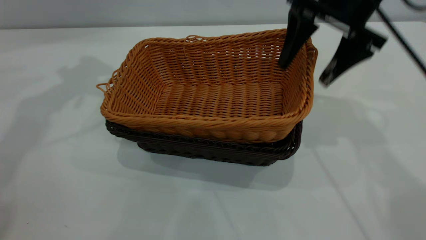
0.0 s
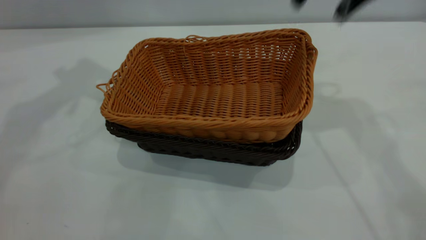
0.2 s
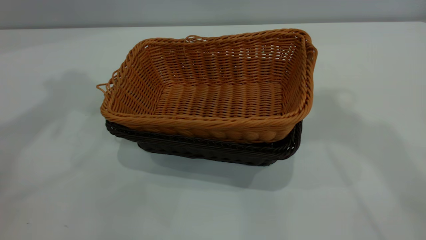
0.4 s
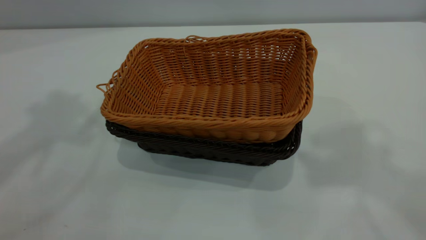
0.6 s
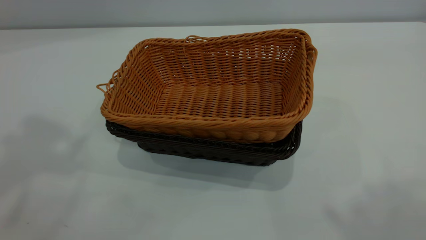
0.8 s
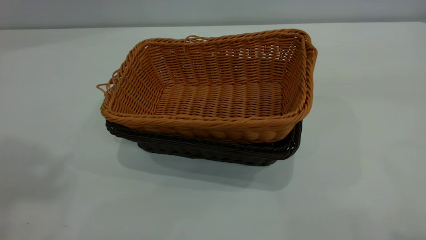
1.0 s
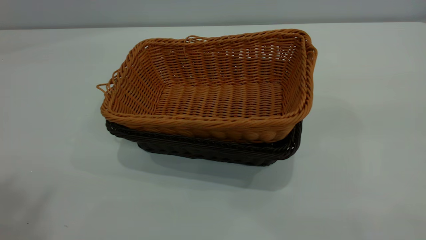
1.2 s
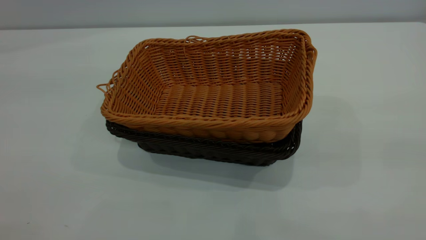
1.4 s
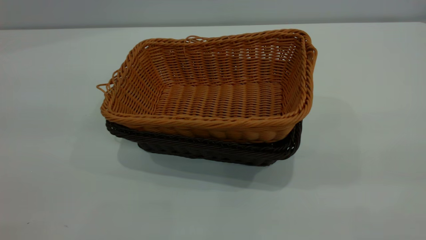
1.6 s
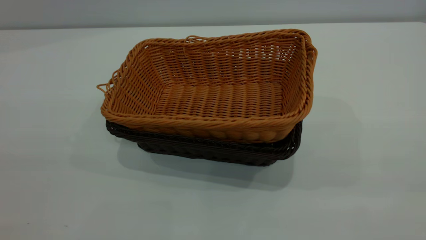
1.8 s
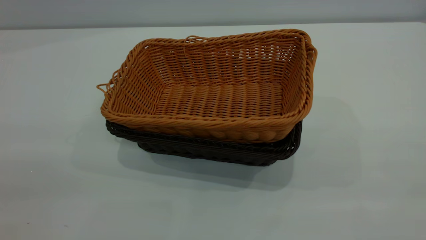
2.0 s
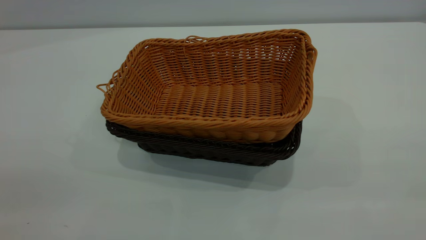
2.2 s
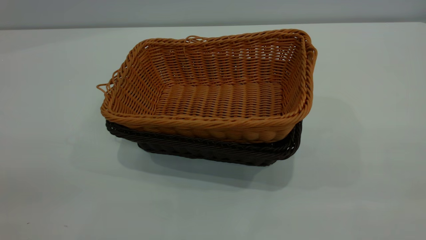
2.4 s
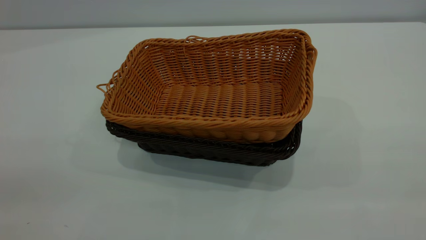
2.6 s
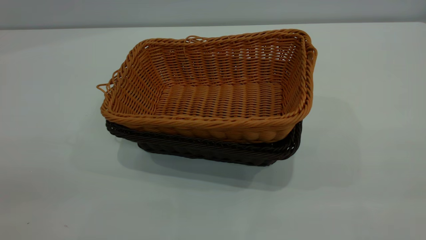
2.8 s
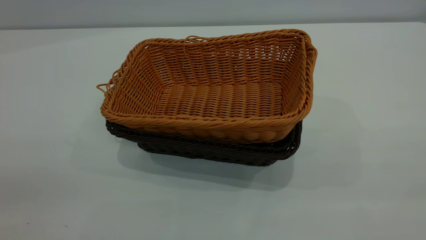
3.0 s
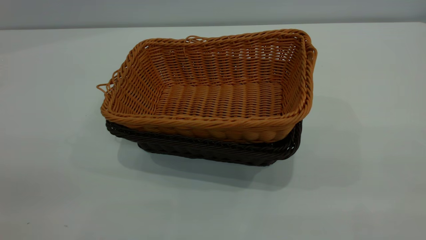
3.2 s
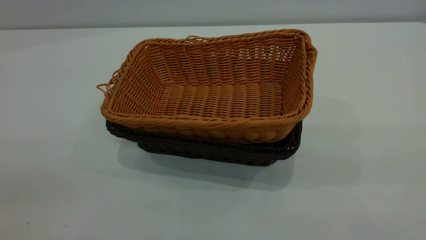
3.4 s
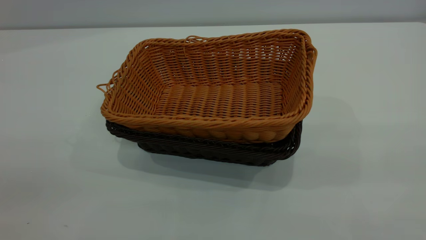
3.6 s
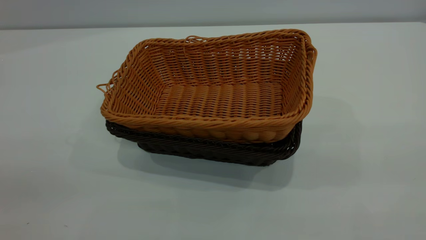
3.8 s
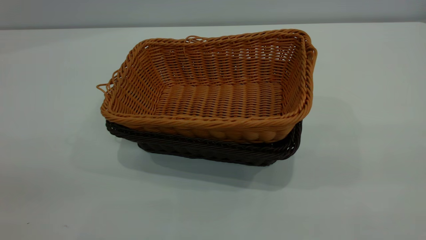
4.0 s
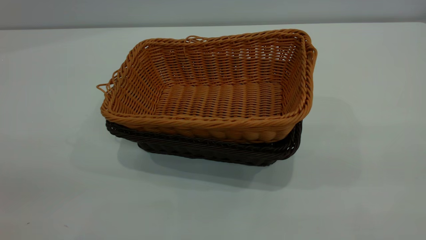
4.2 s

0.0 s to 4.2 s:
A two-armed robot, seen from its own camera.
Task of the whole recording: the left gripper grasp the black basket and place it in the center of the table, the right gripper grasp the brown basket and place it inside the black one.
0.0 to 1.4 s: The right gripper moves backward and upward, roughly 40 cm.

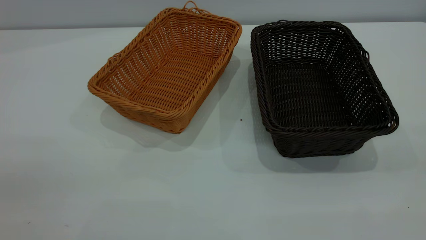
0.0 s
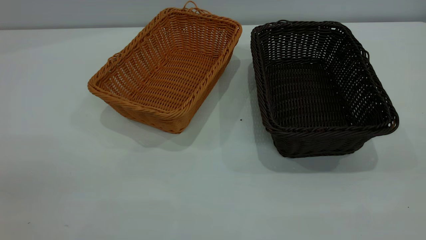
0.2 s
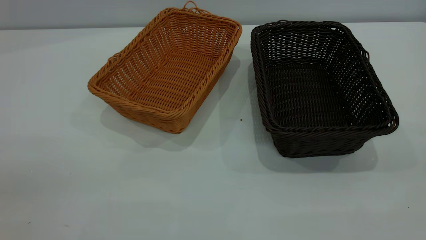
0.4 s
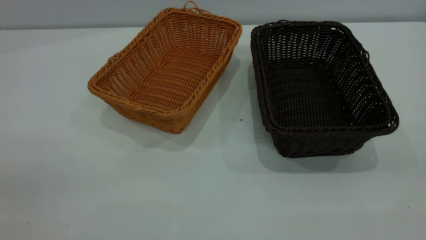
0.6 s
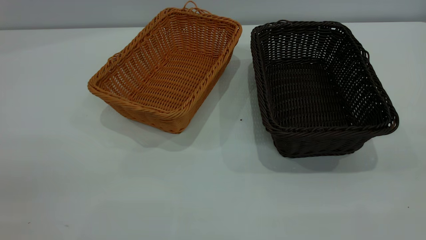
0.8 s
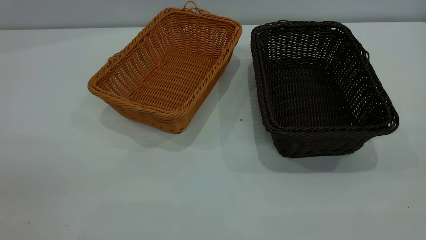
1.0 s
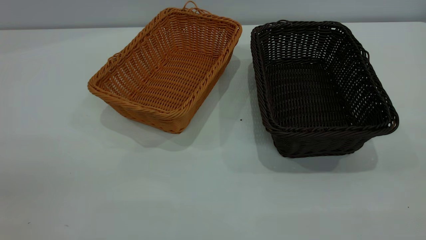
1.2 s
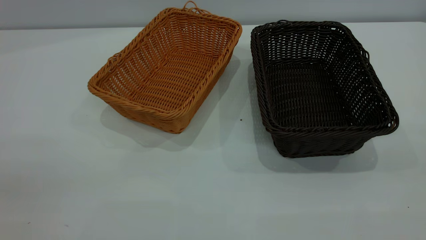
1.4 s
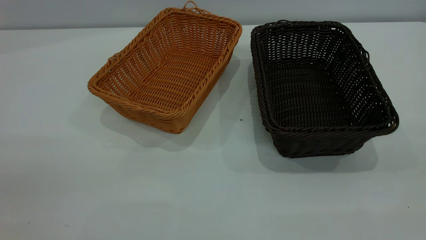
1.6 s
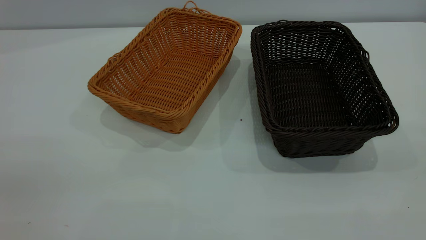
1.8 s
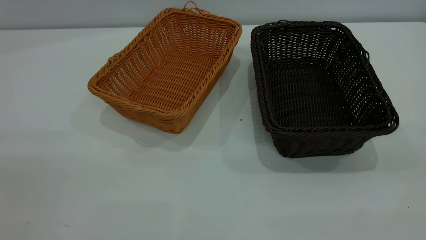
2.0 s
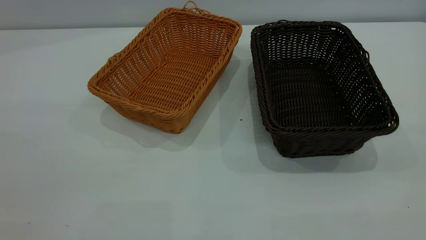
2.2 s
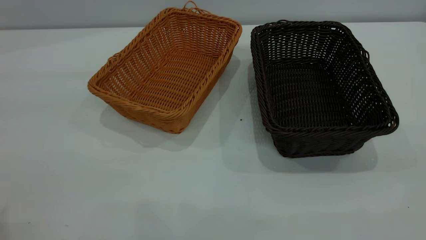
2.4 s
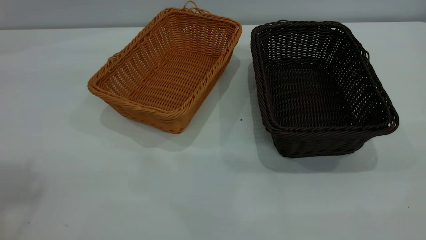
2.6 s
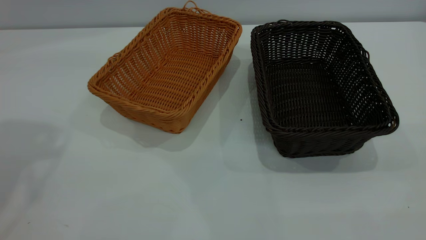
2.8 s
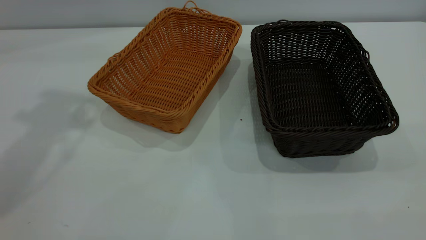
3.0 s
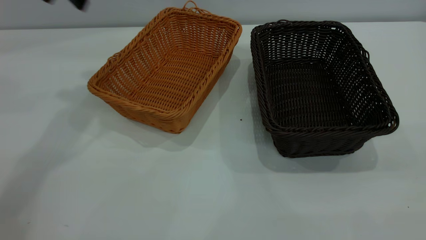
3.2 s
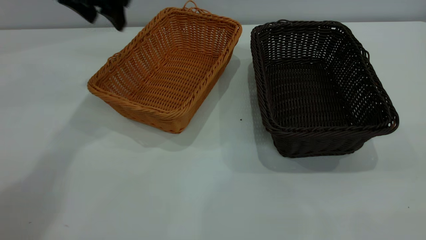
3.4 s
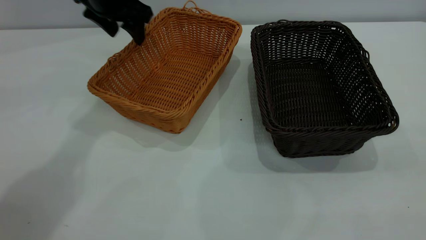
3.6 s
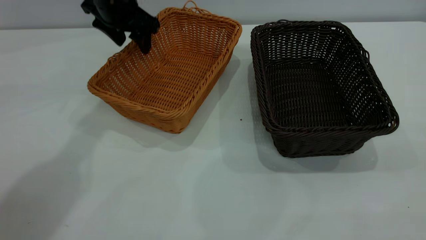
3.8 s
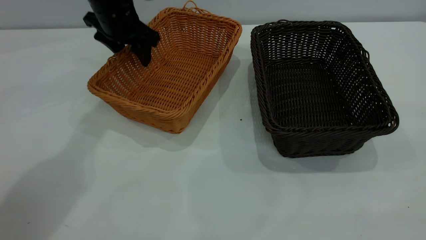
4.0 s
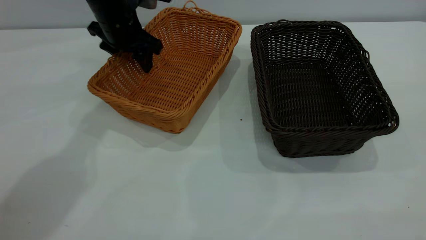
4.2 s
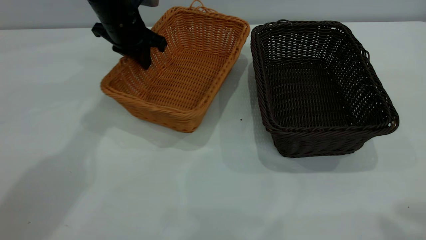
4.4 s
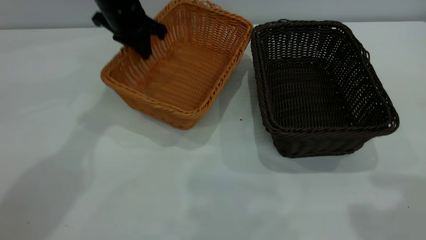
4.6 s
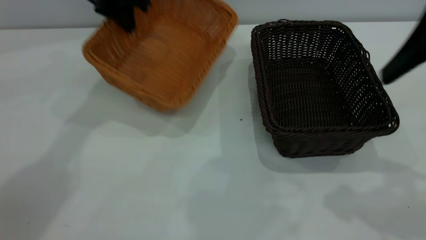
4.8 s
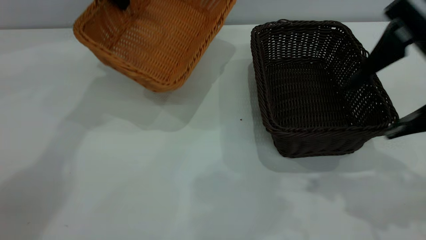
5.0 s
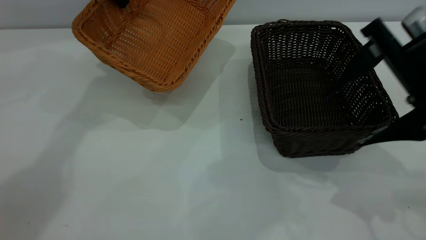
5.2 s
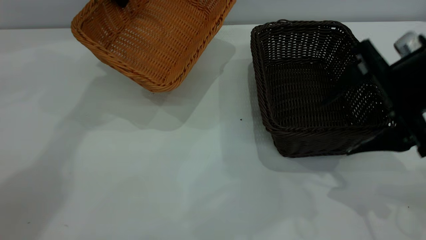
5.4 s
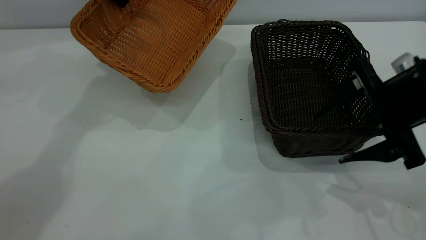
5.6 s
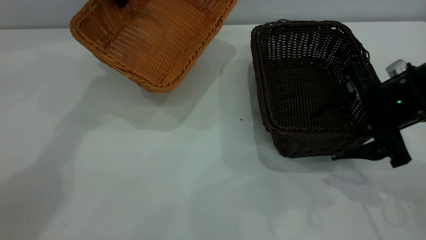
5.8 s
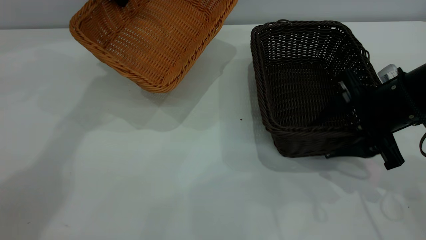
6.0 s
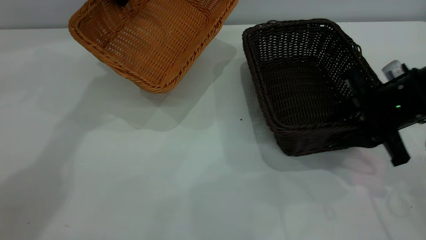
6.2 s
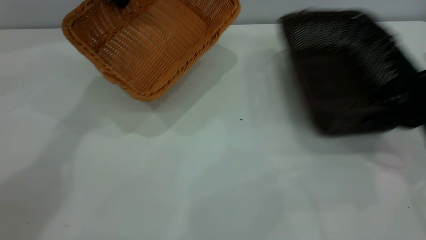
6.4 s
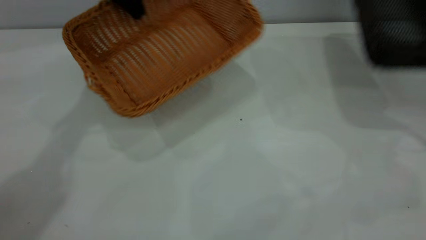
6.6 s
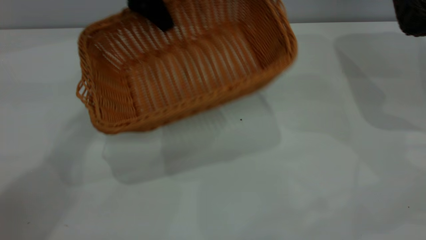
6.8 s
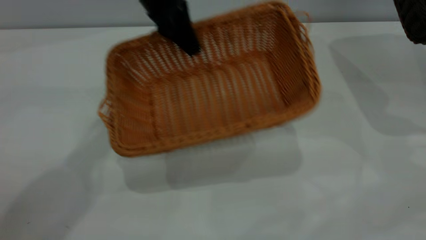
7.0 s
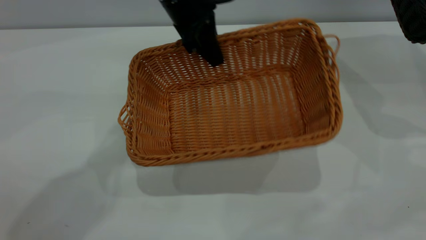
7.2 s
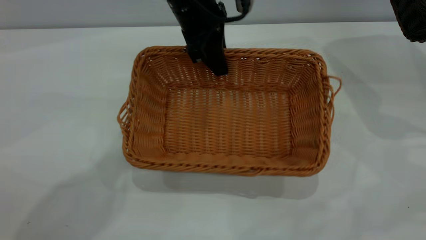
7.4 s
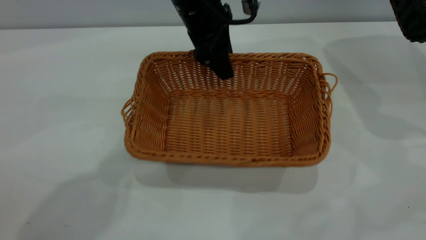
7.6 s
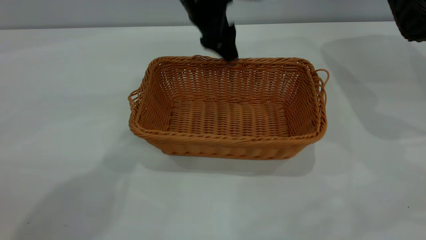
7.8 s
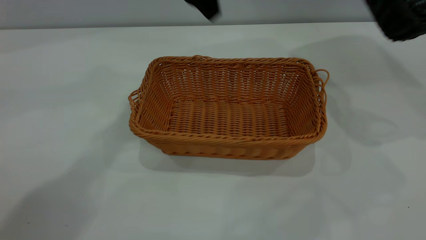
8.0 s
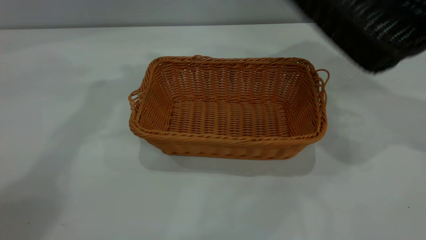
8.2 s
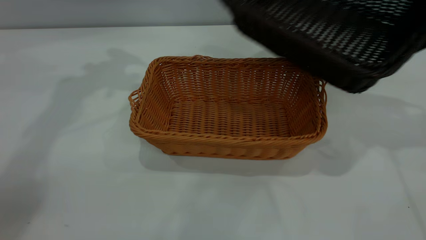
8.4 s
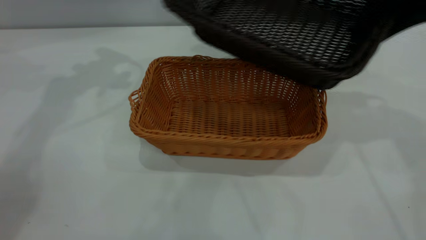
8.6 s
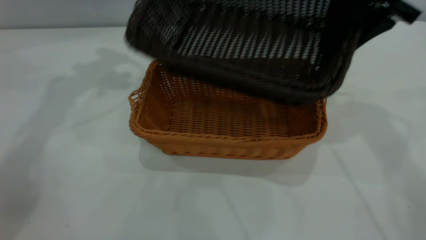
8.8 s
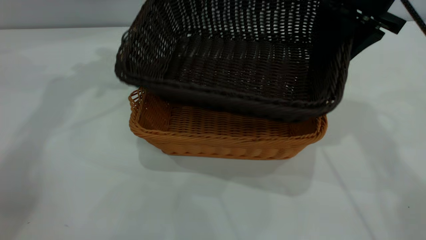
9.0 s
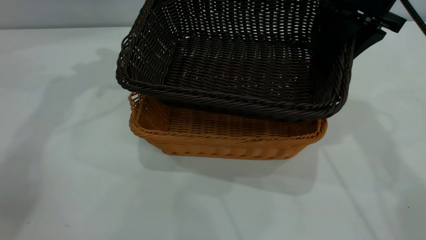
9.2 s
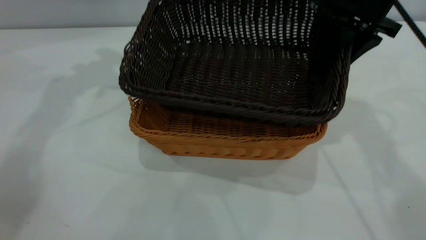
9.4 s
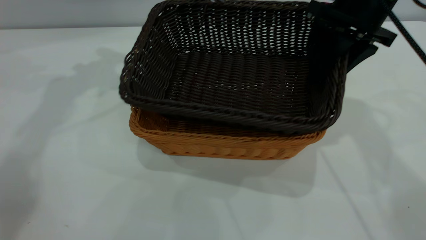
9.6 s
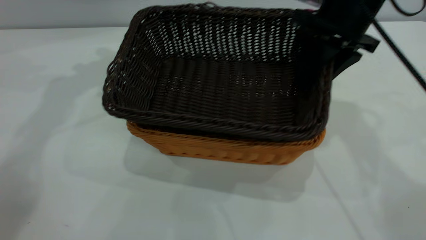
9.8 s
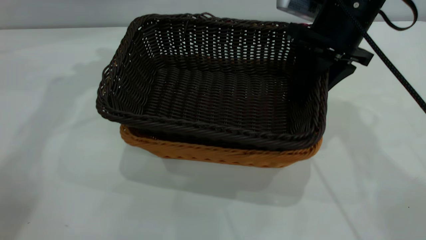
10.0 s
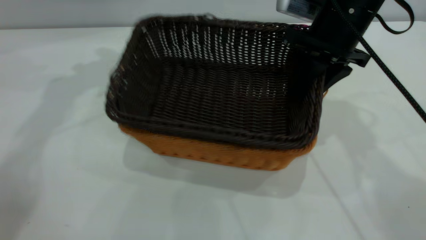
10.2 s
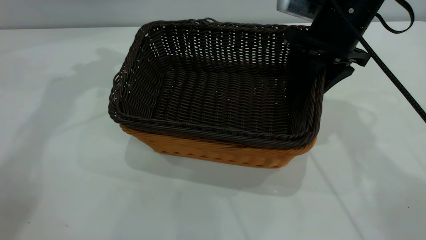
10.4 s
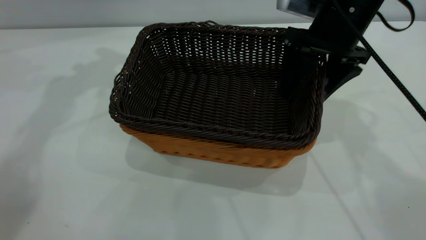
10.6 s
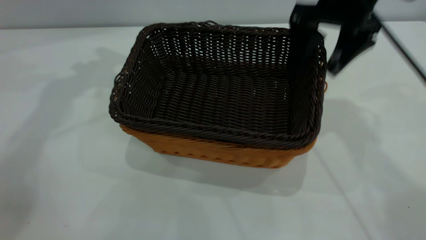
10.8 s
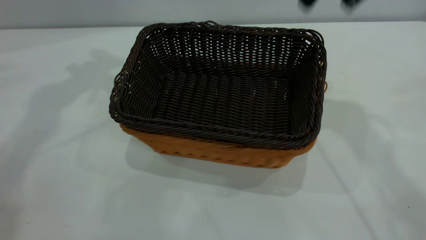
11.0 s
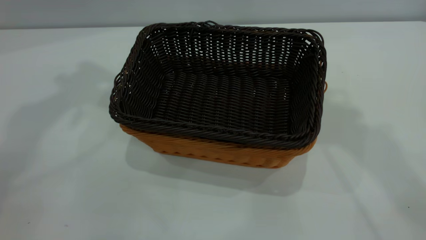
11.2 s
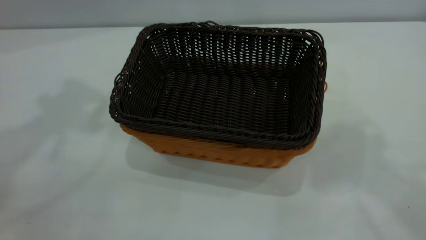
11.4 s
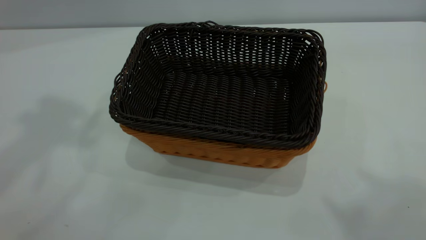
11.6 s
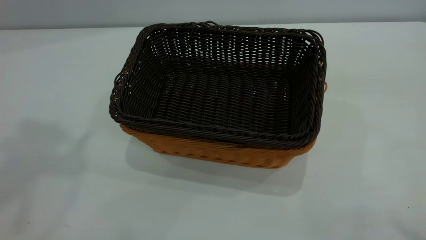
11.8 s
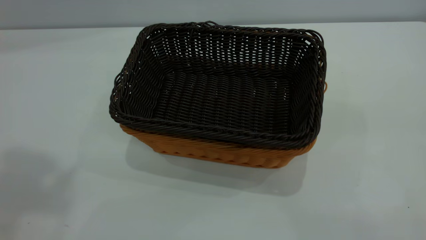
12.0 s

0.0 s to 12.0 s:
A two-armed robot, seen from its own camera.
Task of the whole recording: the left gripper grasp the brown basket and place it in the center of the table, the right gripper grasp the black basket and place it inside the brown one.
Step, 0.0 to 4.8 s: Pick up the light basket with the right gripper.
Step, 5.0 to 7.8 s: Place the light-colored basket in the center.
Step, 8.0 to 10.8 s: Place the dark basket on top of the light basket.
0.0 to 1.6 s: Both grippers stay about where they are.
3.0 to 4.4 s: The left gripper heads downward, forward and to the right, covering some 25 cm, and closes up, while the right gripper heads forward, covering some 15 cm.
4.4 to 6.0 s: The left gripper travels upward by about 10 cm. Meanwhile the right gripper shifts some 30 cm downward and forward, and closes up.
6.0 to 7.6 s: The right gripper travels to the right and upward by about 25 cm, and closes, while the left gripper moves to the right and backward, approximately 20 cm, and opens up.
7.6 to 9.0 s: The left gripper shifts approximately 25 cm to the left and upward. The right gripper heads to the left, covering approximately 25 cm.
9.0 to 10.4 s: The right gripper heads downward, covering some 5 cm.
10.4 to 12.0 s: Both grippers travel together backward and upward, roughly 40 cm. The right gripper opens its fingers.
